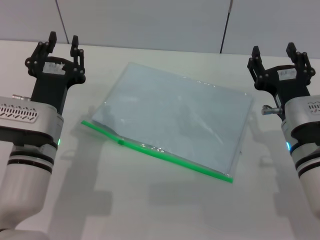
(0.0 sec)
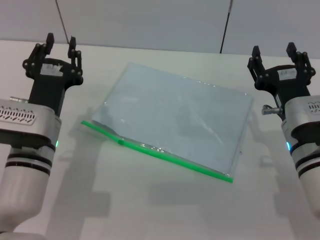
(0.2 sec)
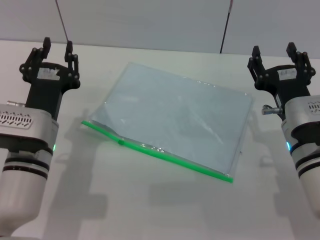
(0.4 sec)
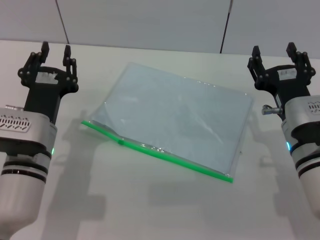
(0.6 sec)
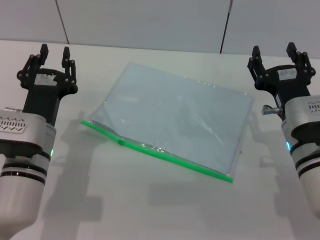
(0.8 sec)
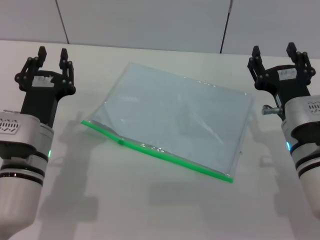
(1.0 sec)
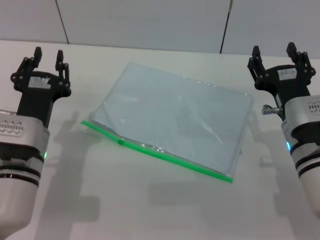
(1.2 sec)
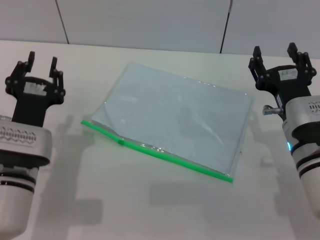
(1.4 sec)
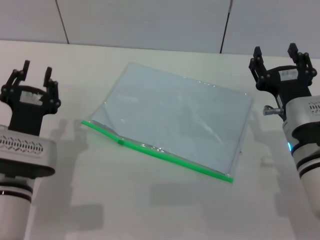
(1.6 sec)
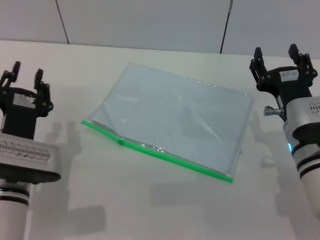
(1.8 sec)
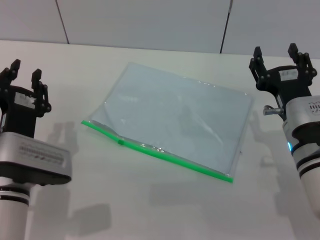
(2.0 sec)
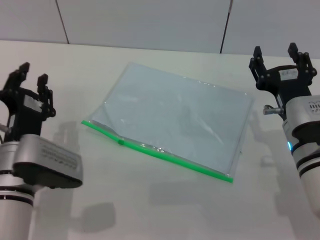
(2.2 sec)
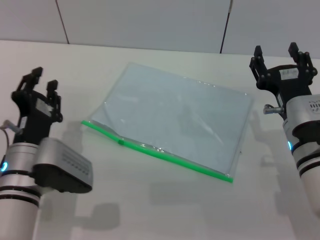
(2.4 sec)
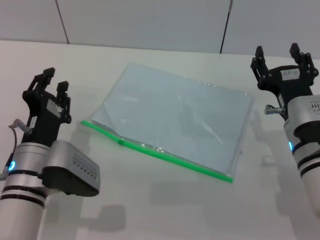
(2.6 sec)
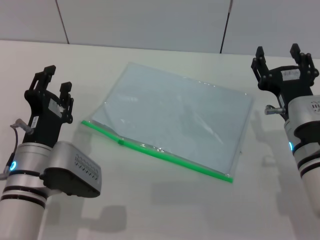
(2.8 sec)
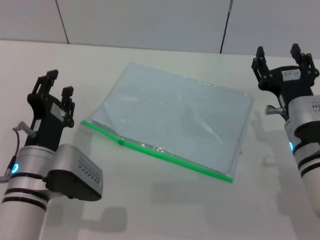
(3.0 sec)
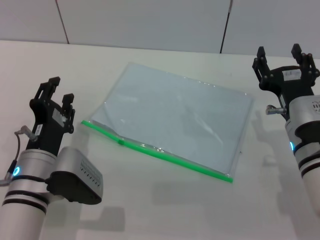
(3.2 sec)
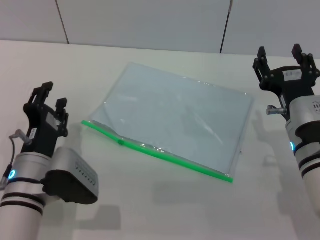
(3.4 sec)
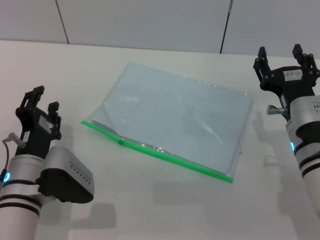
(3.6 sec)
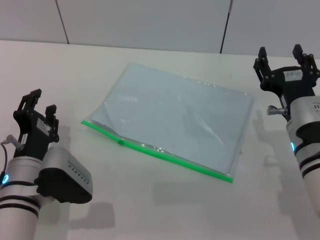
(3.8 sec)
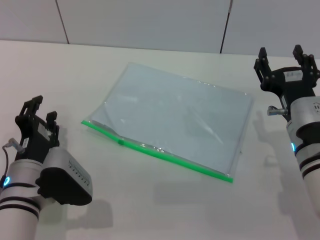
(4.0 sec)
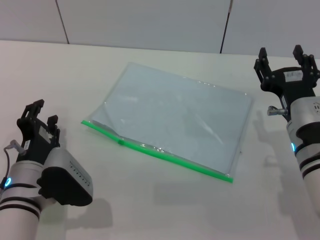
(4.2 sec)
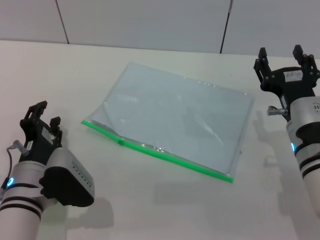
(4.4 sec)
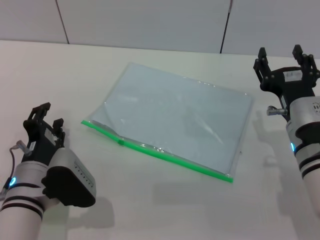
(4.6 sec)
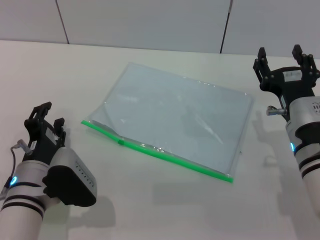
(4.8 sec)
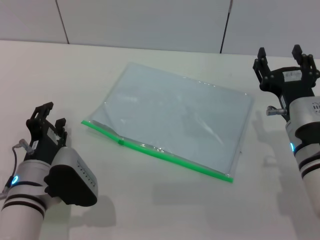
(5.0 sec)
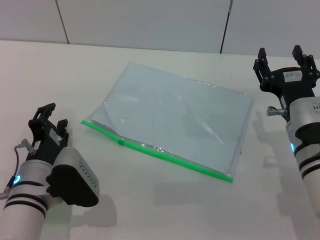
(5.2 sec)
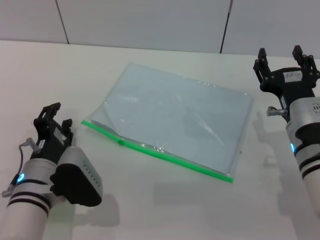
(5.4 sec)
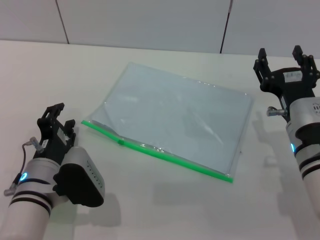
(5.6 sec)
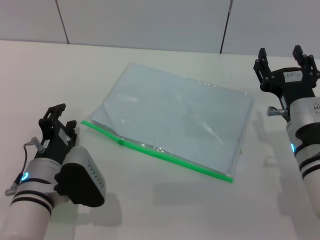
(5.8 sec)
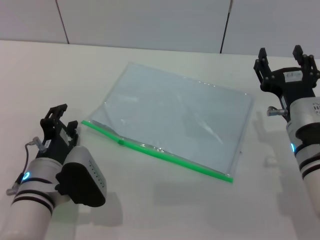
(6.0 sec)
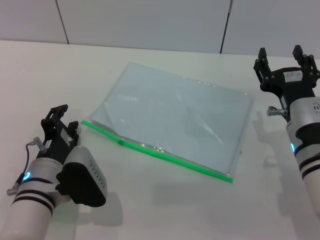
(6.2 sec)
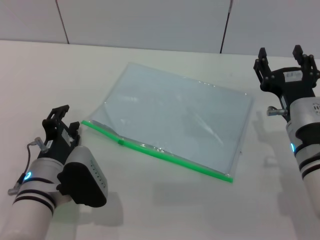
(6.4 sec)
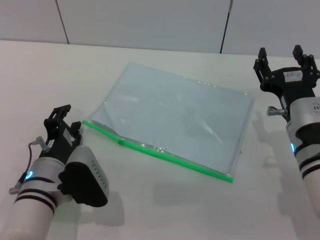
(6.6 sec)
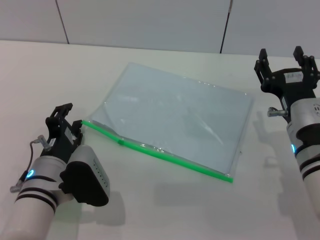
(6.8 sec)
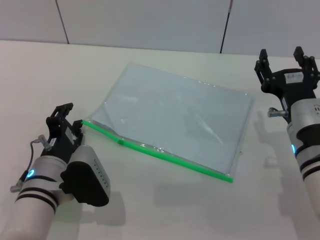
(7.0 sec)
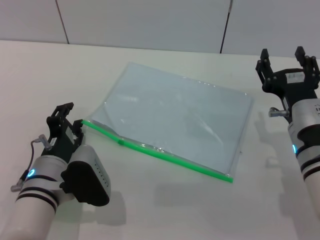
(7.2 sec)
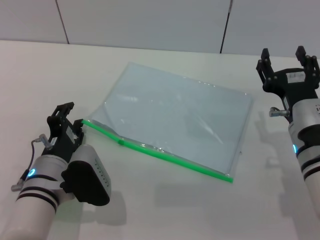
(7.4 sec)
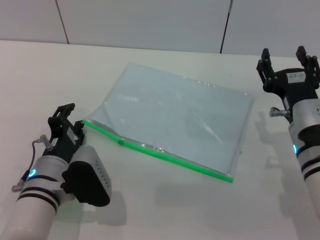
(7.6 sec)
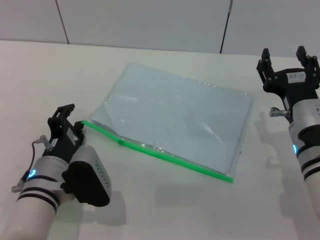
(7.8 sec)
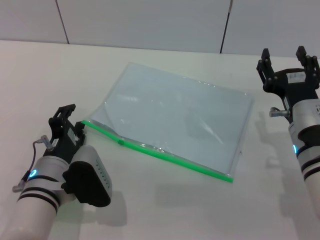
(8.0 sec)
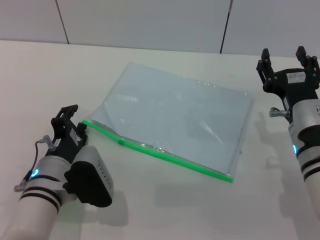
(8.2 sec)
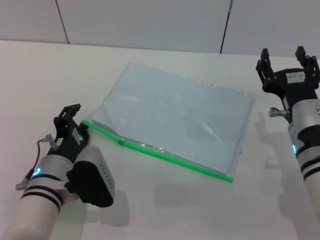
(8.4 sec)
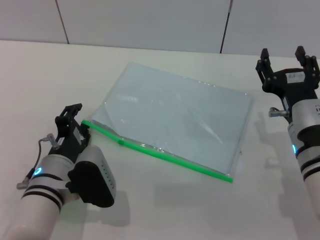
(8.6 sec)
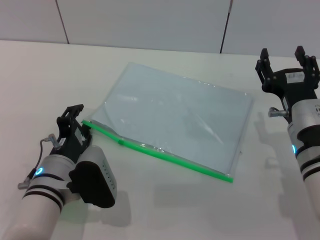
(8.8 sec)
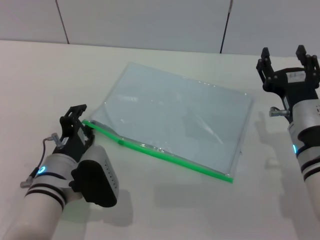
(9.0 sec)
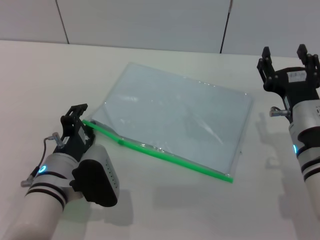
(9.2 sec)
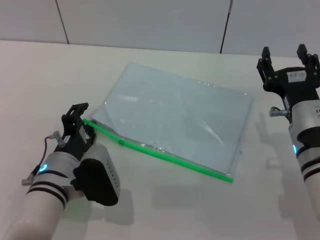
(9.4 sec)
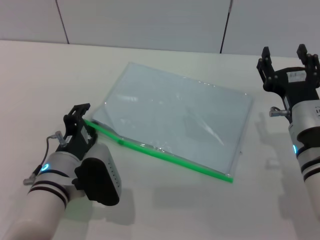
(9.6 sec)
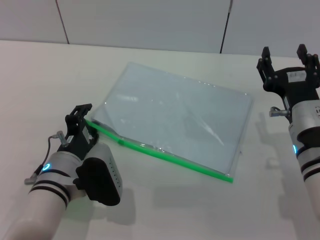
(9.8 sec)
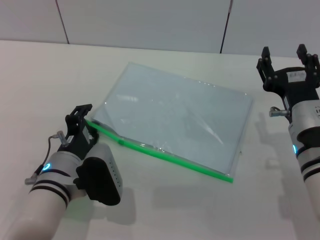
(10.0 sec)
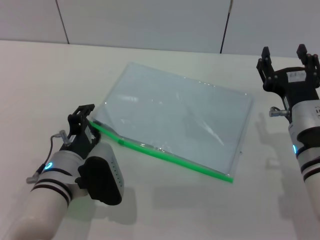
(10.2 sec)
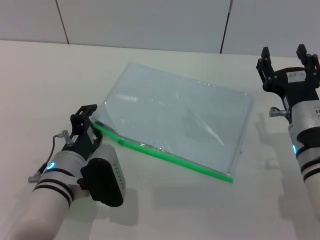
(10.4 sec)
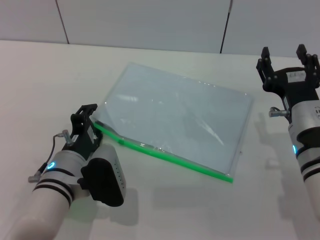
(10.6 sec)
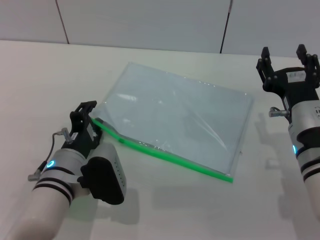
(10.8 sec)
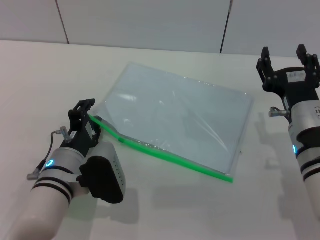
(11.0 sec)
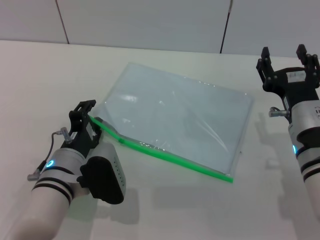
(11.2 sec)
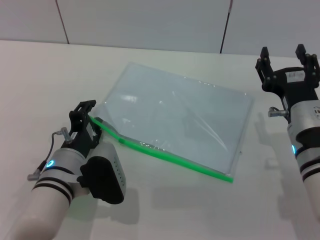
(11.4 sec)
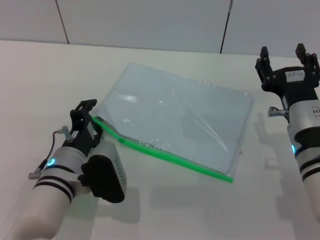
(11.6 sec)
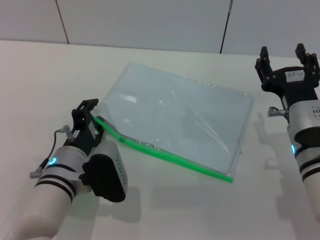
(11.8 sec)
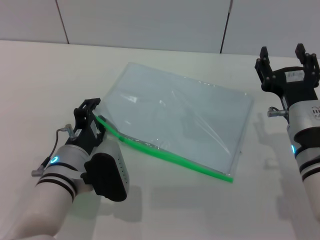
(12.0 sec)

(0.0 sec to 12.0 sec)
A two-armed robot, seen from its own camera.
3.0 sec - 6.0 sec: There are only small adjustments of the grippers.
6.0 sec - 7.6 sec: Both grippers stay about where they are.
7.6 sec - 9.0 sec: Both grippers stay about where they are.
9.0 sec - 10.4 sec: Both grippers stay about where they are.
10.4 sec - 12.0 sec: Both grippers stay about where they are.

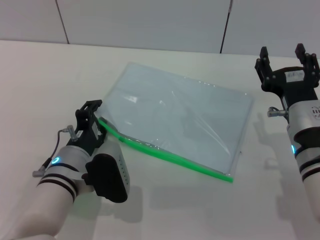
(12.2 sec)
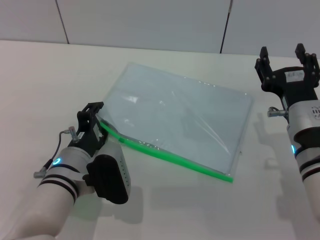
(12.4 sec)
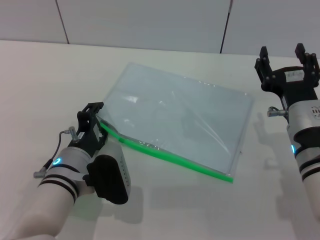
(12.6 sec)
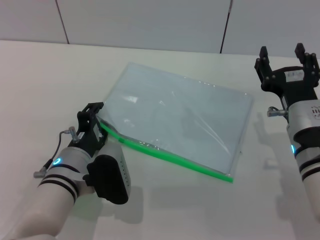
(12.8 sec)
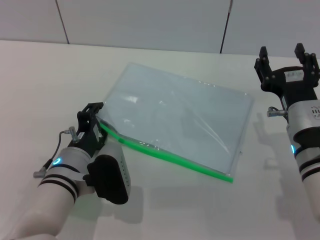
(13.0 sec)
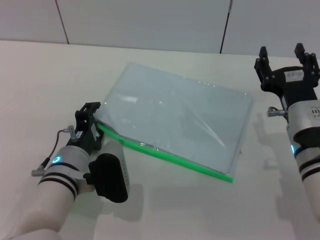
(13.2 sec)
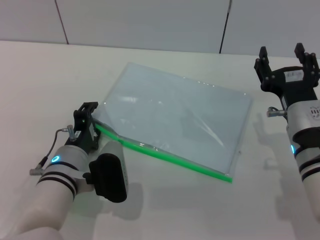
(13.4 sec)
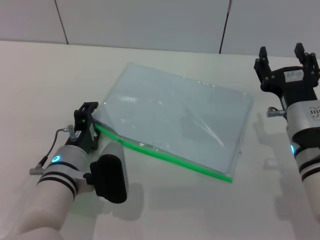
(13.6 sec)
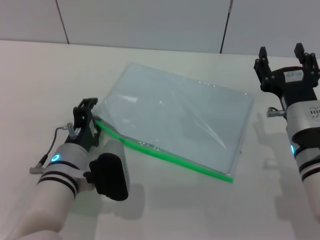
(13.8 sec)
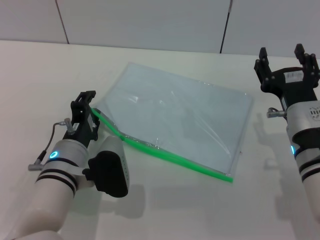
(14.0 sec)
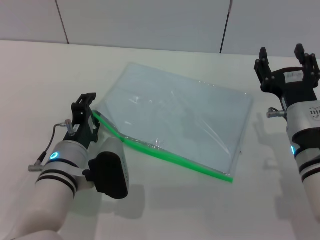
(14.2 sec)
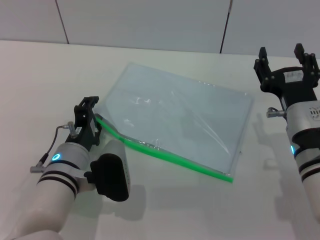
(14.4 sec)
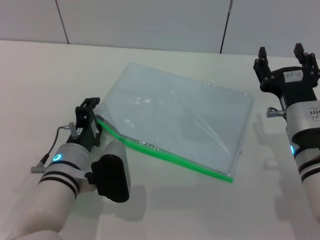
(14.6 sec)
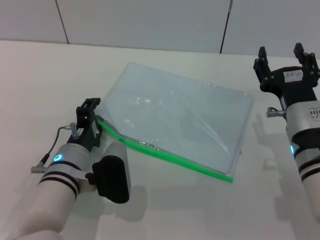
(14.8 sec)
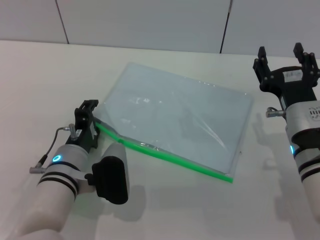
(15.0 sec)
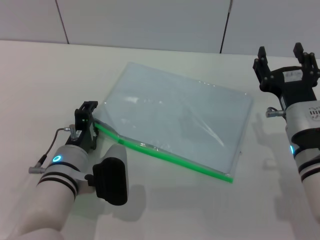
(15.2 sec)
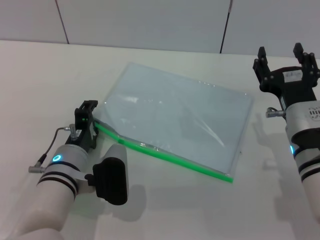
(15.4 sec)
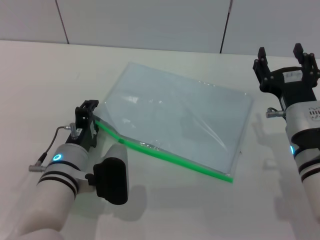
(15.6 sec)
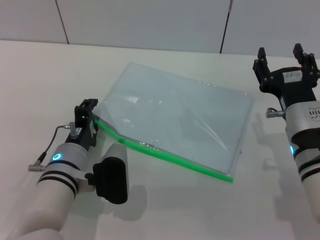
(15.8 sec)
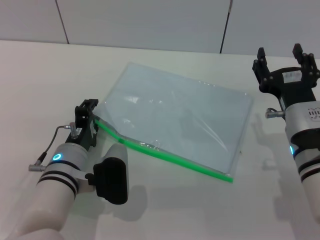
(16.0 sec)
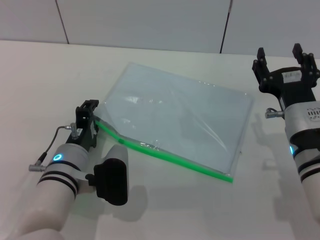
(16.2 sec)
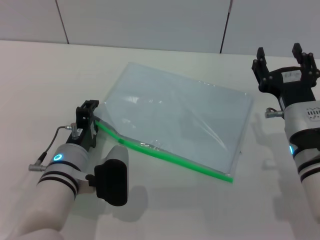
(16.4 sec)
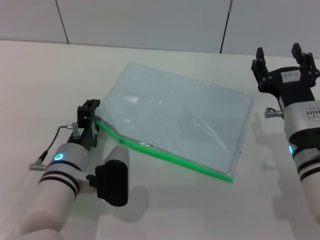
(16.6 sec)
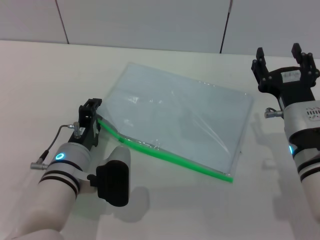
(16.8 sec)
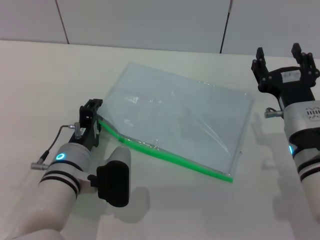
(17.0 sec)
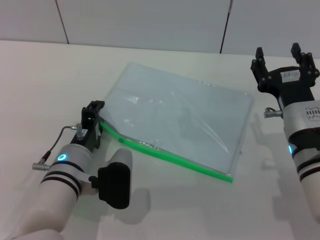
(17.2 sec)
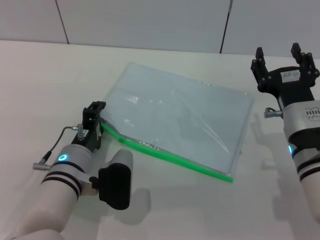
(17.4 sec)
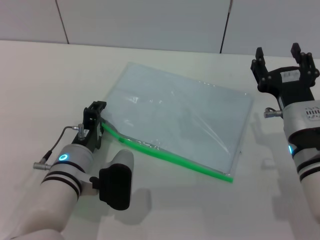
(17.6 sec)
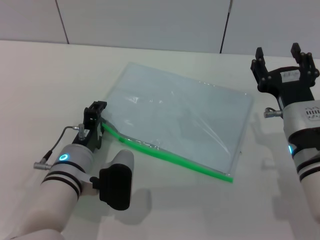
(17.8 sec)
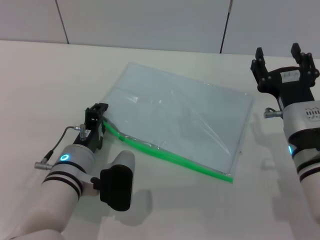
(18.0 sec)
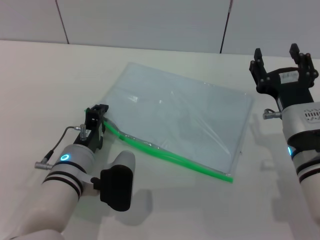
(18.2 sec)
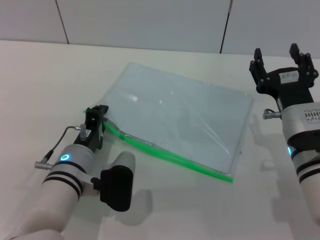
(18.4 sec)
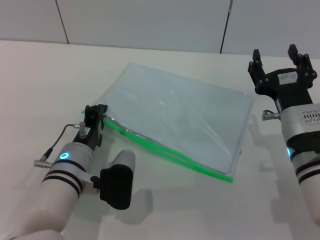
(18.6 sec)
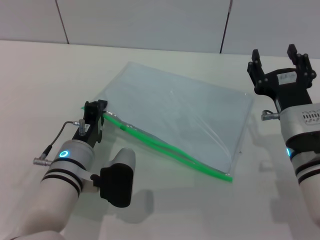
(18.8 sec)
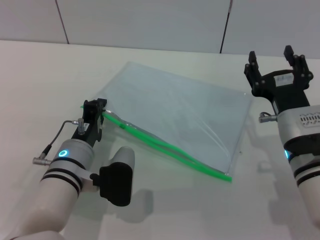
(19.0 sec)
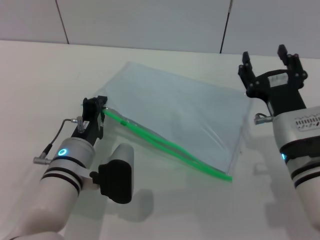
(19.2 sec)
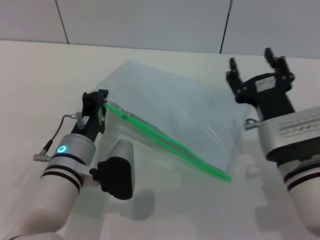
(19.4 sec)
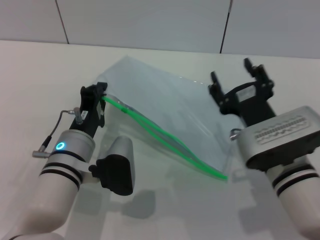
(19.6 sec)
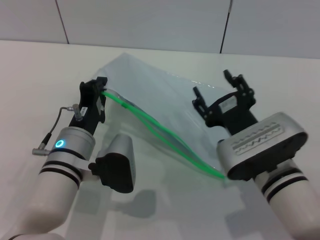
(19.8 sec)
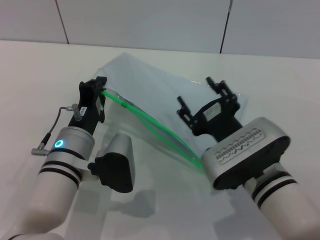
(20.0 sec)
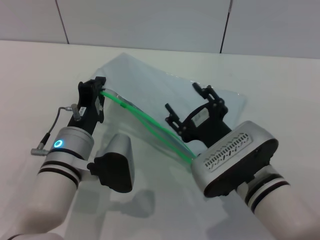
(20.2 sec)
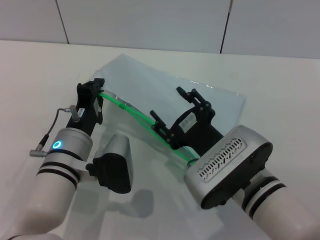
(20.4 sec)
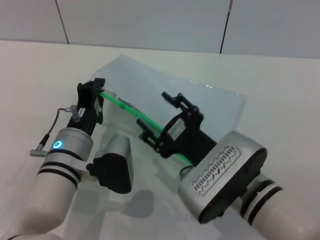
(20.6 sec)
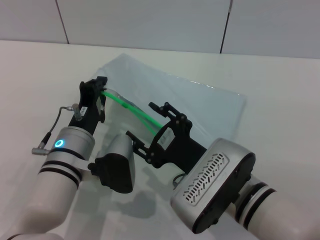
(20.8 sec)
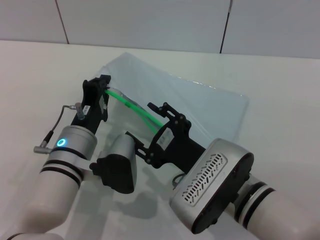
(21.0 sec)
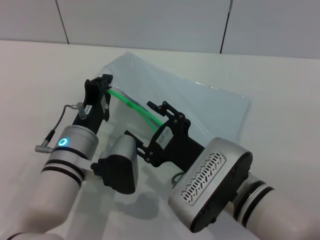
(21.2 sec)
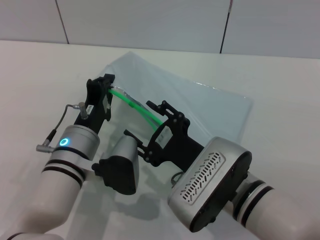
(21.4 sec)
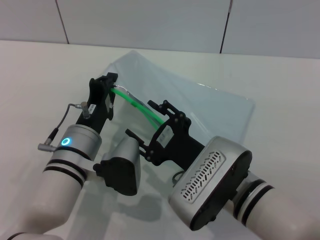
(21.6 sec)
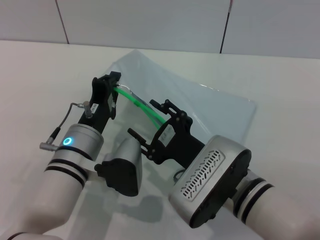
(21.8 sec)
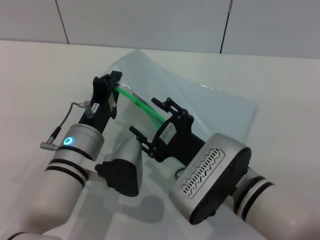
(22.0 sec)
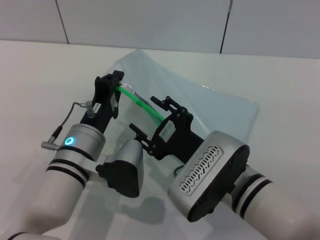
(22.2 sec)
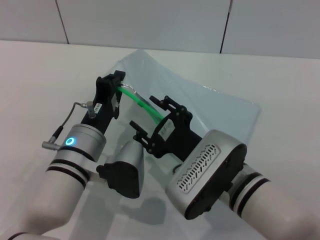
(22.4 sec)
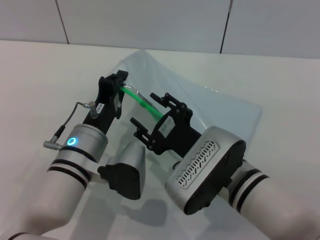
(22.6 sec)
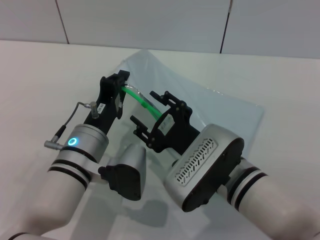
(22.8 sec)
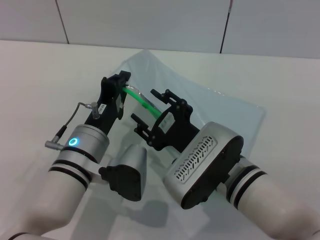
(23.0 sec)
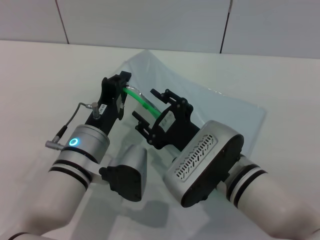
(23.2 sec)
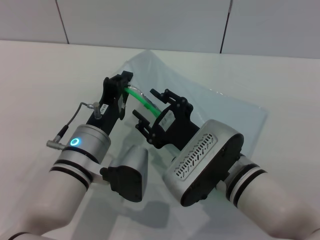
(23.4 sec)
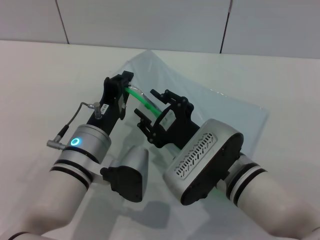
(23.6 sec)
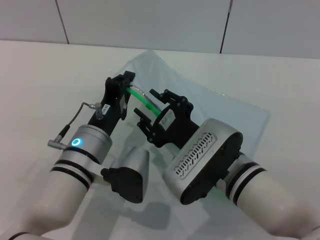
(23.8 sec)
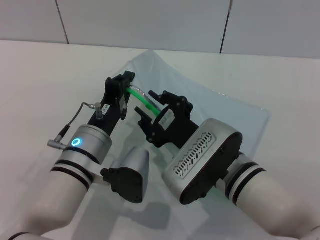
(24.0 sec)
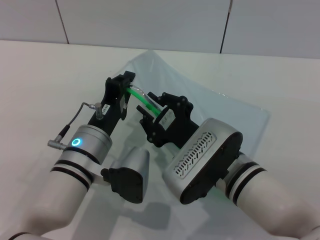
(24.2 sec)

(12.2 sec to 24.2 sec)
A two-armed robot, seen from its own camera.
Step, 12.2 sec - 19.2 sec: Pick up the transparent plastic bag with the left gripper.
12.2 sec - 15.2 sec: There are only small adjustments of the grippers.
15.2 sec - 16.6 sec: Neither gripper changes place.
16.6 sec - 18.2 sec: The two grippers keep their place.
18.2 sec - 19.8 sec: The right gripper shifts by roughly 5 cm; the left gripper closes its fingers.
19.8 sec - 21.2 sec: The right gripper goes some 5 cm to the left.
22.6 sec - 24.2 sec: Both grippers stay about where they are.
